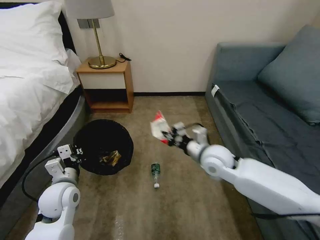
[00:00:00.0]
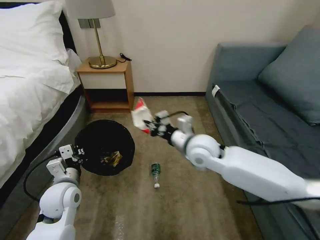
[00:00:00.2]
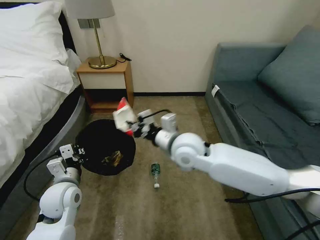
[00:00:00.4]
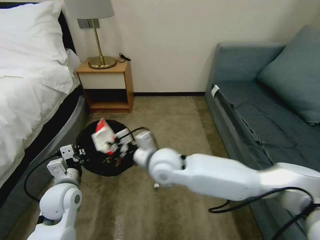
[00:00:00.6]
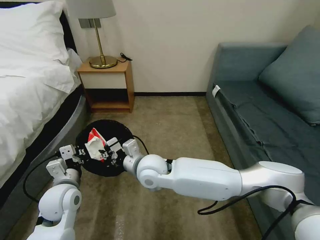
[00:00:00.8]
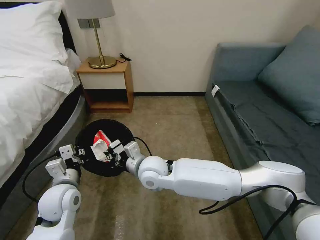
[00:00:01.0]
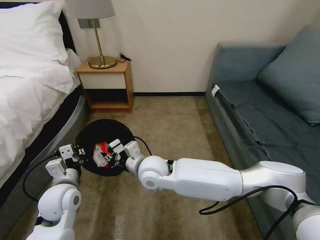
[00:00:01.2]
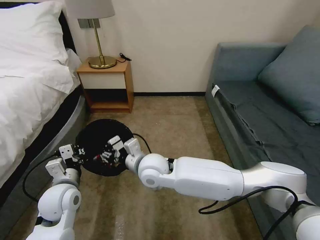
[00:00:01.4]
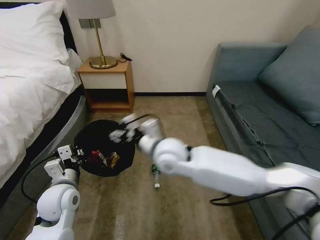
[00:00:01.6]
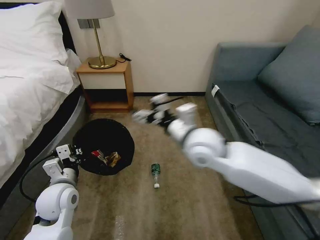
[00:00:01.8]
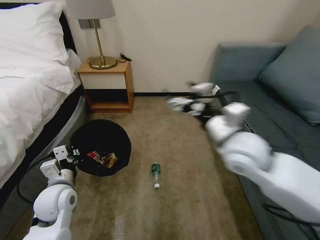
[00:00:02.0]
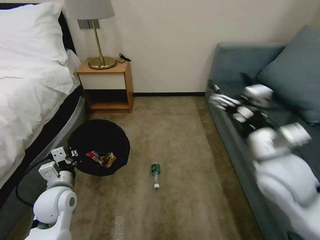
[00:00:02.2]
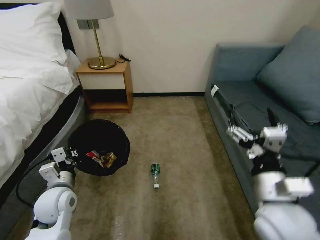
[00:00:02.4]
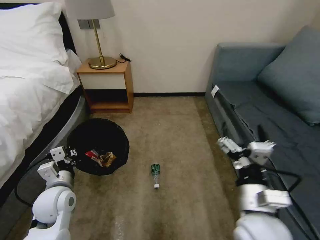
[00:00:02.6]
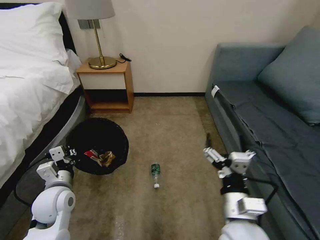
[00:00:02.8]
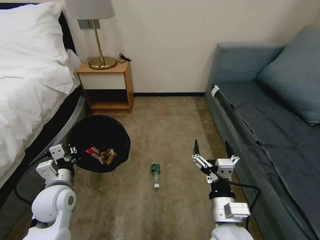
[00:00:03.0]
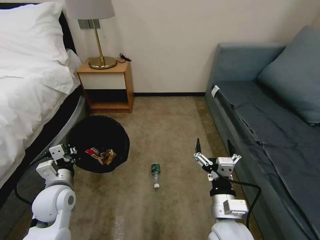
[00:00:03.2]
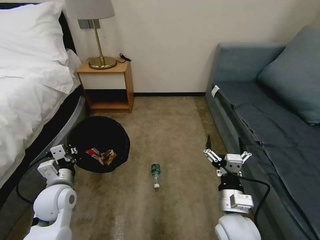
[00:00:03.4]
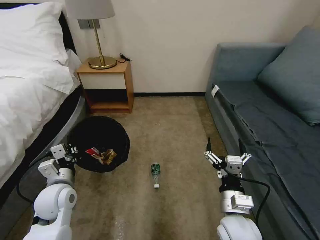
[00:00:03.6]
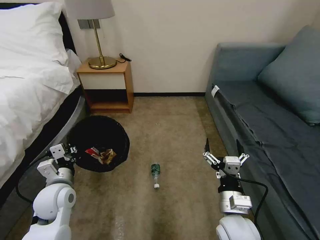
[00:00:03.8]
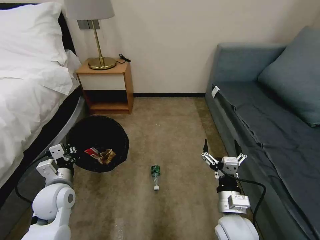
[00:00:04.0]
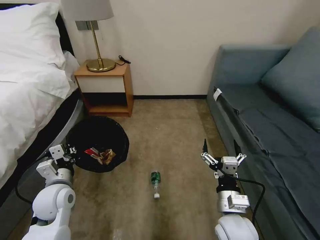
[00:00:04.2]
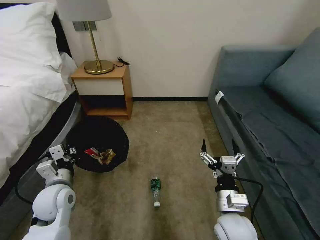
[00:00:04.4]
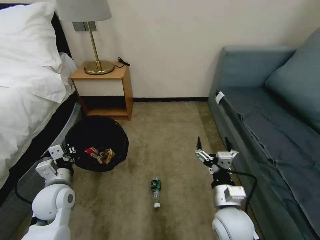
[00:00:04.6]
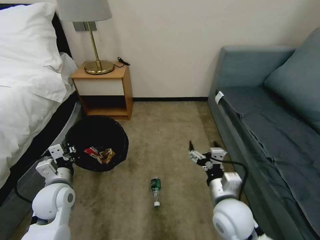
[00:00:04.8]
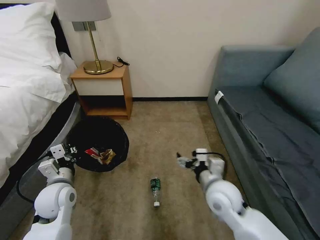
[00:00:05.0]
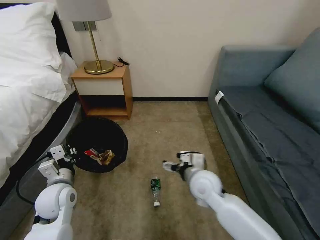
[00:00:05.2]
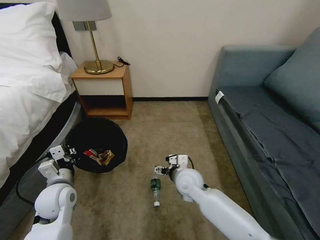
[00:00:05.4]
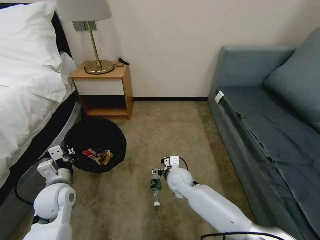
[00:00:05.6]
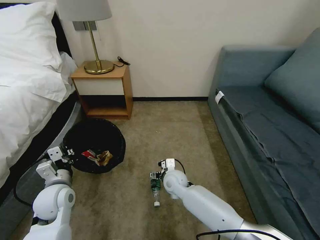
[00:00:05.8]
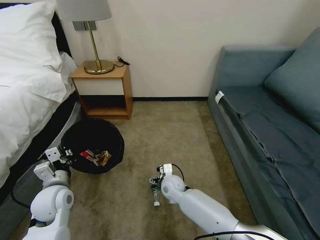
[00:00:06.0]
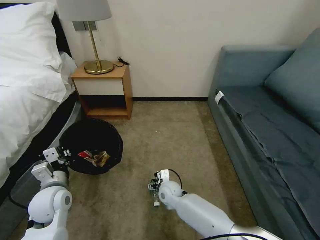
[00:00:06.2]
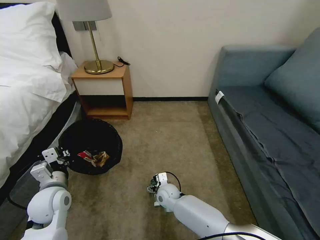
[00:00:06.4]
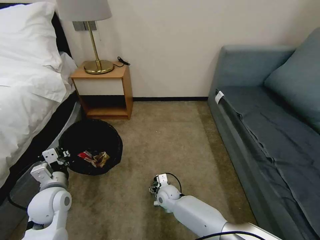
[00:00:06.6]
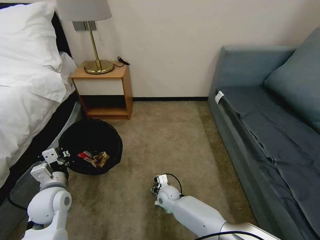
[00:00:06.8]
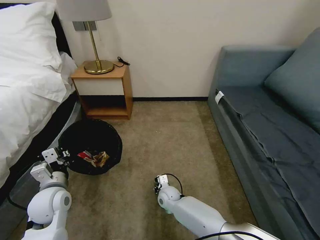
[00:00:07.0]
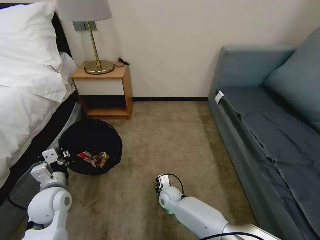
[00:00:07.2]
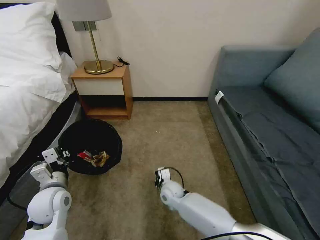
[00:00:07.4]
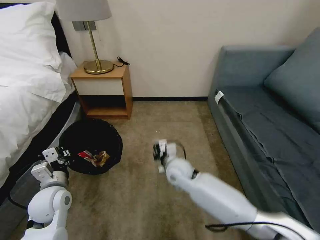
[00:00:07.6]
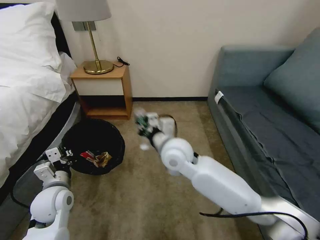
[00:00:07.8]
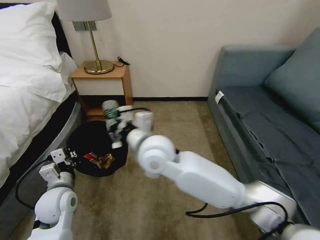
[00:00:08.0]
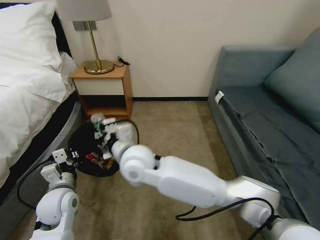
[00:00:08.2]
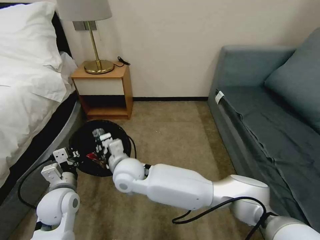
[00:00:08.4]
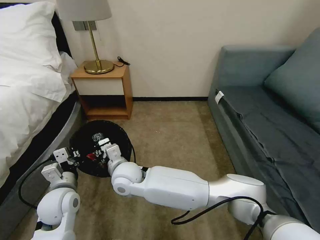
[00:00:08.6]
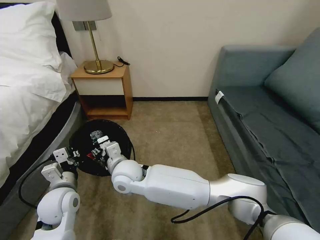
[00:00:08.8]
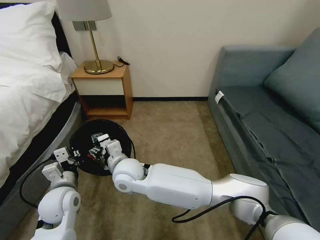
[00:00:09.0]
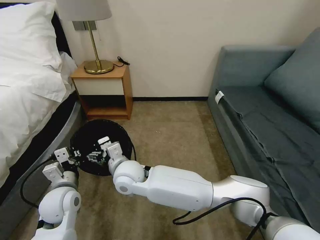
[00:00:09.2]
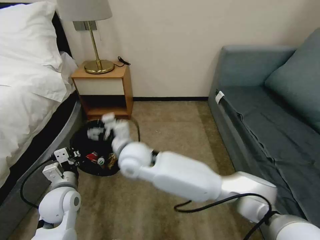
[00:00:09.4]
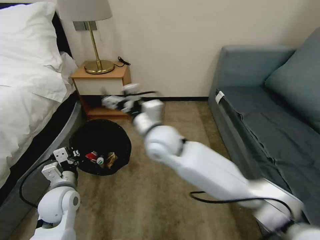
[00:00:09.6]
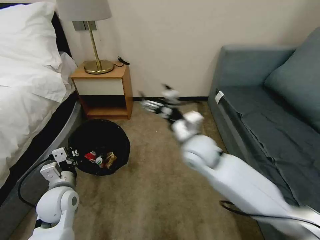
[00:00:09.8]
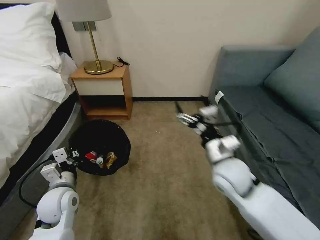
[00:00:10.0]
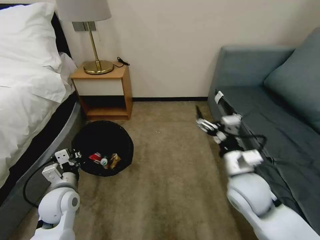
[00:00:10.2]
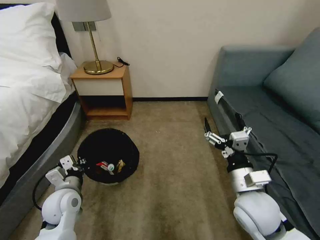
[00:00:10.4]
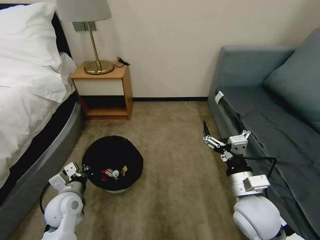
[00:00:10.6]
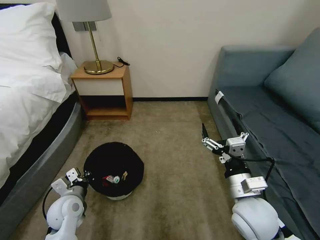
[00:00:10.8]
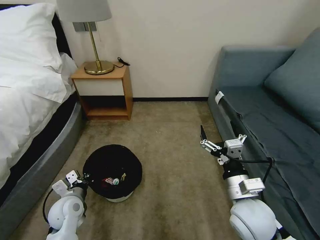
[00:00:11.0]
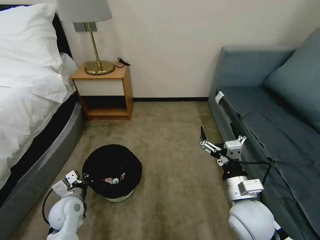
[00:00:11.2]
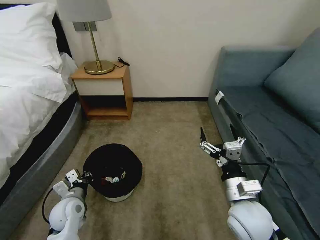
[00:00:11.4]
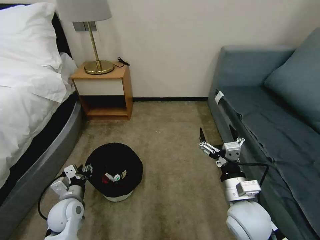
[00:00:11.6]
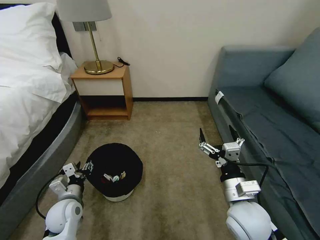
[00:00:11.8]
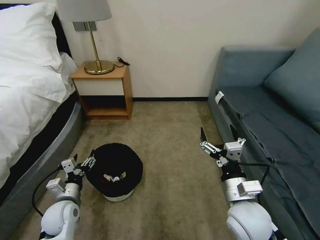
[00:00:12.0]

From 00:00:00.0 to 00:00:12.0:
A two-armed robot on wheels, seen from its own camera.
Task of the whole recording: Pick up the trash bin, then pick up the garbage on the floor and place it into the trash bin.
From 00:00:00.0 to 00:00:01.6: The right gripper goes some 15 cm to the left, and opens.
From 00:00:01.6 to 00:00:03.0: The right gripper is displaced backward, to the right and downward by about 25 cm.
From 00:00:03.0 to 00:00:04.4: The right gripper ends up approximately 5 cm from where it was.
From 00:00:04.4 to 00:00:06.0: The right gripper goes some 25 cm forward, to the left and downward.
From 00:00:06.0 to 00:00:07.6: The right gripper heads upward, covering approximately 10 cm, and closes its fingers.
From 00:00:07.6 to 00:00:09.0: The right gripper shifts approximately 20 cm to the left and upward, and opens its fingers.
From 00:00:09.0 to 00:00:10.4: The right gripper travels to the right by approximately 35 cm.
From 00:00:10.4 to 00:00:12.0: The left gripper travels downward by some 5 cm, and opens its fingers.

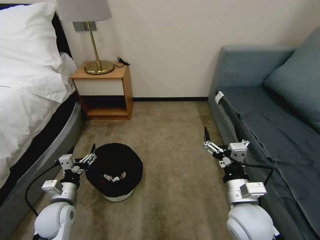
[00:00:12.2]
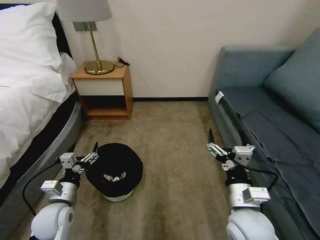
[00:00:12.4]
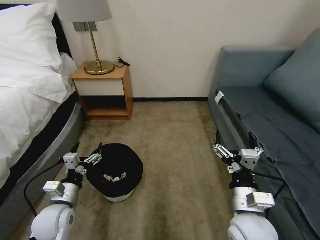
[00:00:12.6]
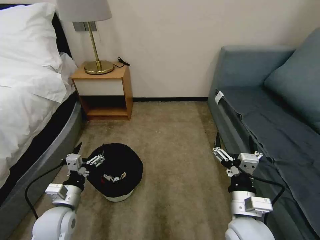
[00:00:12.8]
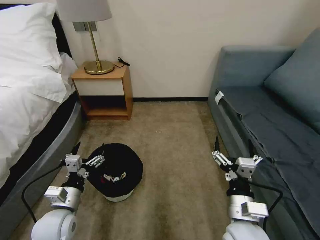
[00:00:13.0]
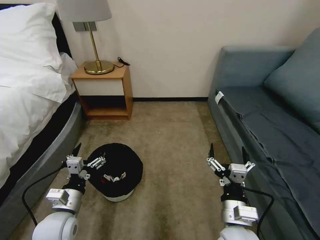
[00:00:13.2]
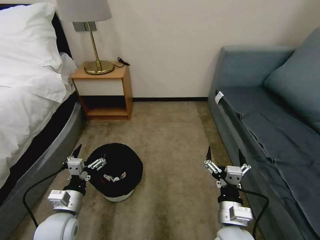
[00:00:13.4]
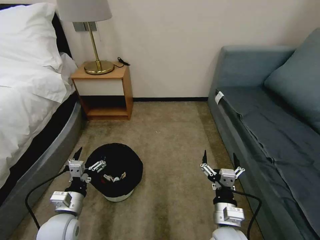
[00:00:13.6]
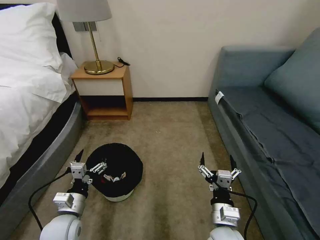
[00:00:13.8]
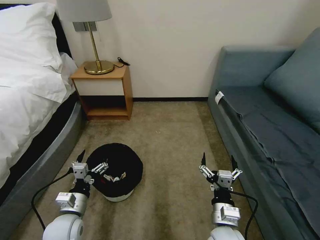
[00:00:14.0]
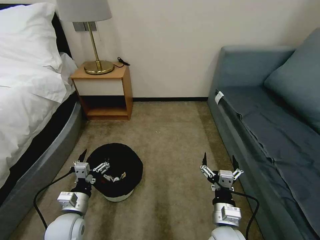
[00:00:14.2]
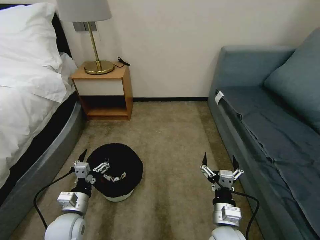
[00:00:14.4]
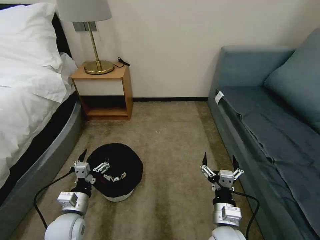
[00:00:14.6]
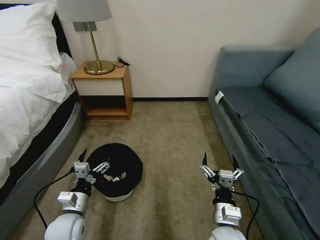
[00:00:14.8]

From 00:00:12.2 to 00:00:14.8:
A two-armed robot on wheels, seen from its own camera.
Task of the whole recording: Pick up the trash bin, then pick up the garbage on the floor and place it into the trash bin.
From 00:00:12.2 to 00:00:13.4: The left gripper changes place by roughly 5 cm; the right gripper is displaced downward by some 5 cm.
From 00:00:13.4 to 00:00:14.8: There are only small adjustments of the grippers.
